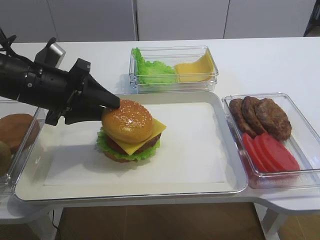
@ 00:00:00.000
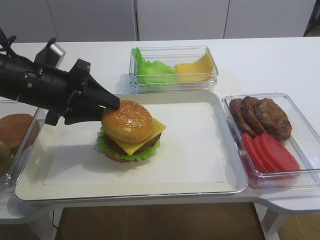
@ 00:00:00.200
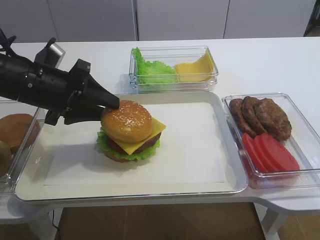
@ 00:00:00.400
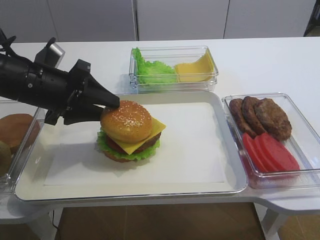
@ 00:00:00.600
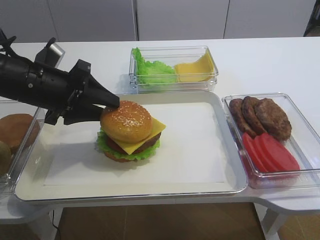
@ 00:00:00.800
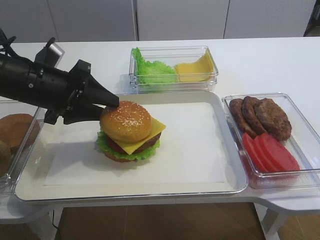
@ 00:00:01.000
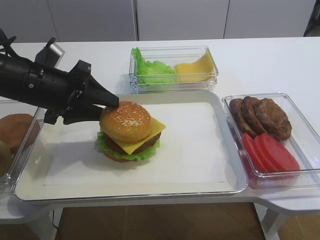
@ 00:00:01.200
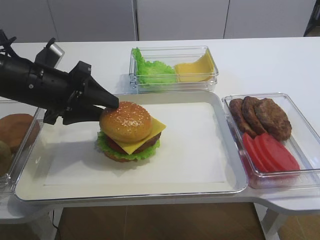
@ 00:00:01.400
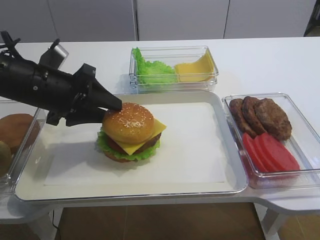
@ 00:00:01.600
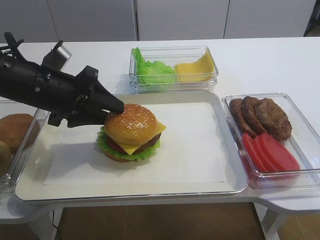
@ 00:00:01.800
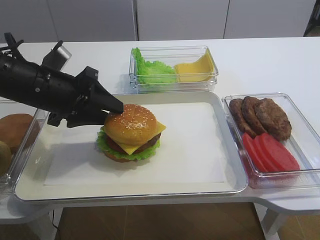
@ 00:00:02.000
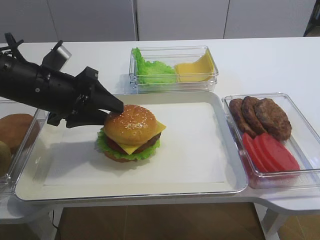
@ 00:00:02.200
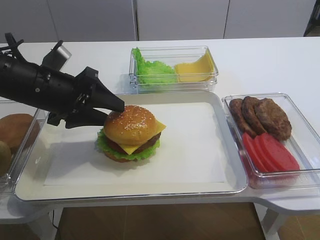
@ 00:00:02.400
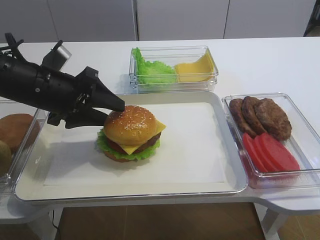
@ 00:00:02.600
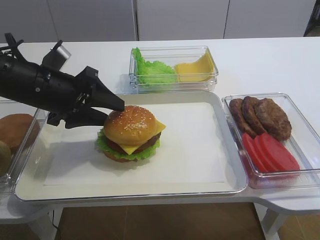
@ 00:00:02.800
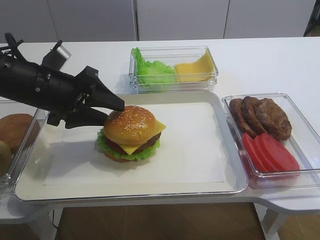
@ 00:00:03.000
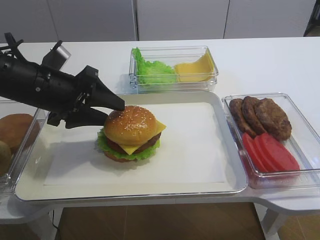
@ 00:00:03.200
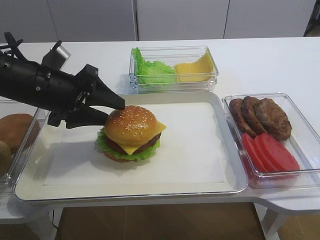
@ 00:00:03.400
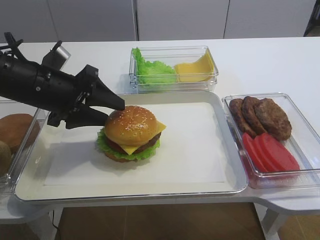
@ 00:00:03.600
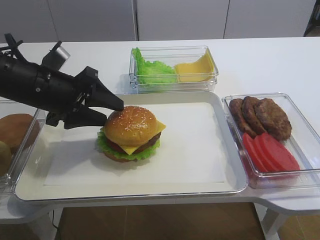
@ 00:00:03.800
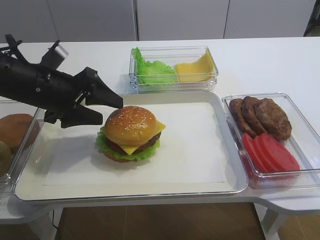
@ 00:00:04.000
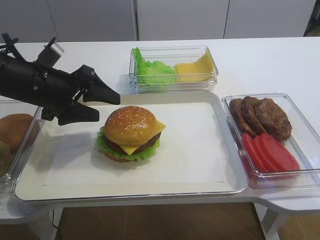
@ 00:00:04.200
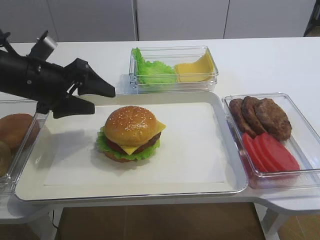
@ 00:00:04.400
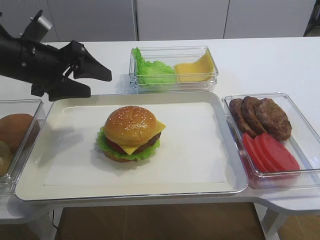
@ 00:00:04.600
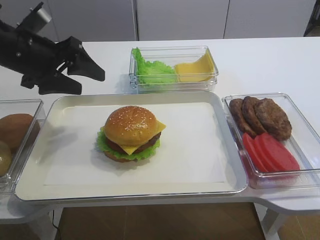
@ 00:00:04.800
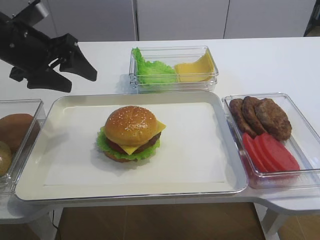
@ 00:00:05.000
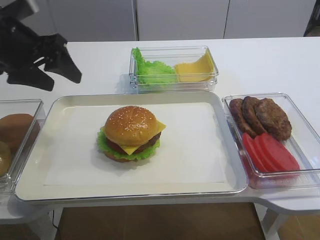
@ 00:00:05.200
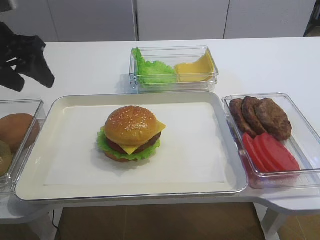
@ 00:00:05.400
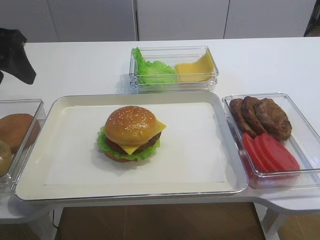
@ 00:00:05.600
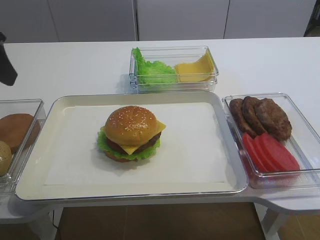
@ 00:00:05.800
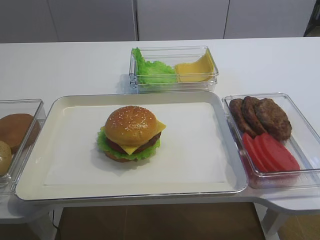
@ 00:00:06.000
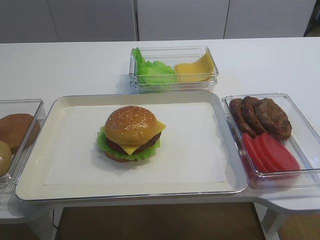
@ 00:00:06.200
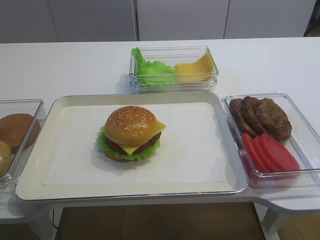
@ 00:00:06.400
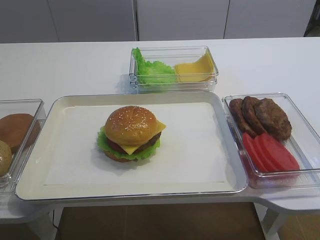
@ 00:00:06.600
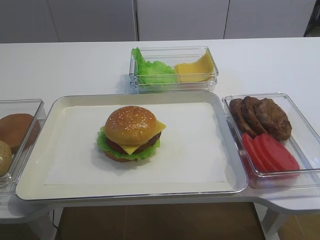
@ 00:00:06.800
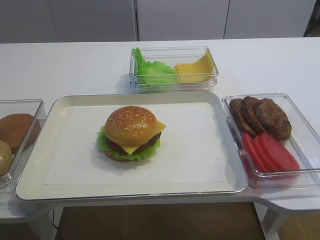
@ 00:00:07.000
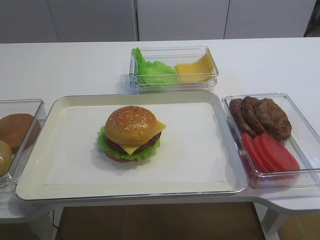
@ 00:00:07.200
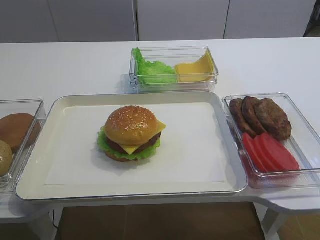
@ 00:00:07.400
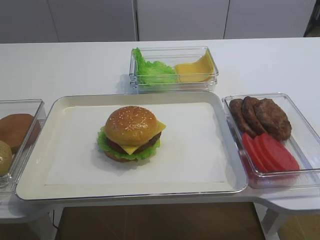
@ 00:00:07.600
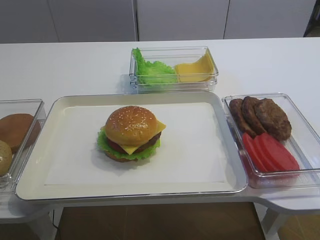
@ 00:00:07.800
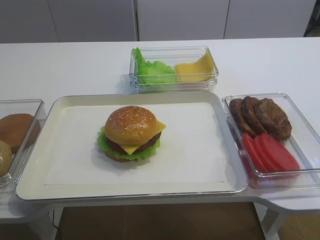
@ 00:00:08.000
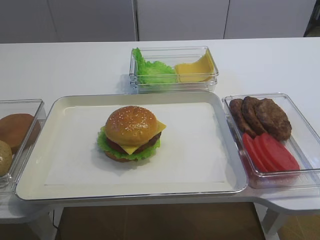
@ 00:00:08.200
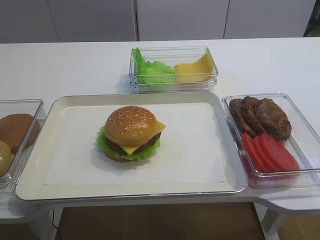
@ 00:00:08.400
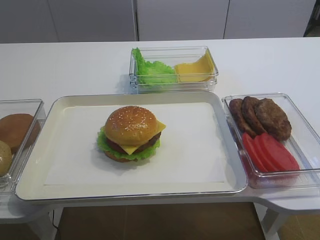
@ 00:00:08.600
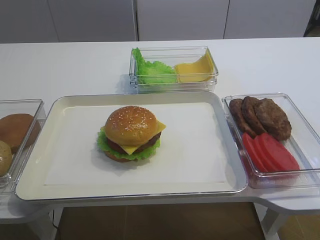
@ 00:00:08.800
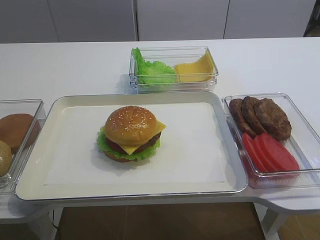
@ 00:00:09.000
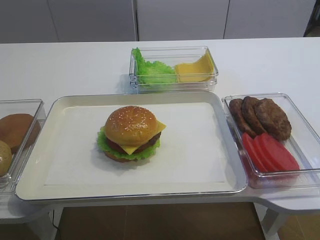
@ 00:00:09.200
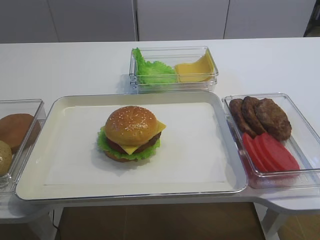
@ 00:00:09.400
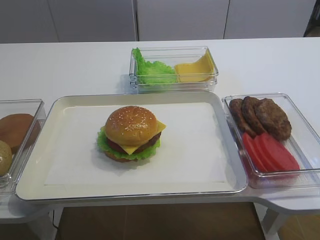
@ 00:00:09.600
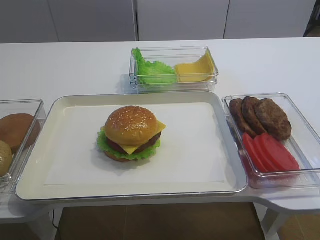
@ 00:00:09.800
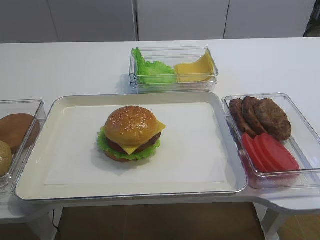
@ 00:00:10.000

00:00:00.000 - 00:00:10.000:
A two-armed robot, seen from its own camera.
Step, 00:00:00.000 - 00:00:04.200: Place the hamburger lid on the cheese slice with the left gripper.
00:00:00.000 - 00:00:01.400: The two grippers keep their place.
00:00:01.400 - 00:00:02.800: Neither gripper changes place.
00:00:02.800 - 00:00:04.200: The grippers stay close to where they were, moving slightly.
00:00:04.200 - 00:00:05.800: The left gripper shifts roughly 15 cm upward, to the left and backward.
00:00:05.800 - 00:00:07.200: The left gripper heads backward, covering about 30 cm.
00:00:08.600 - 00:00:10.000: Both grippers stay put.

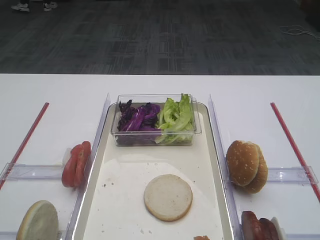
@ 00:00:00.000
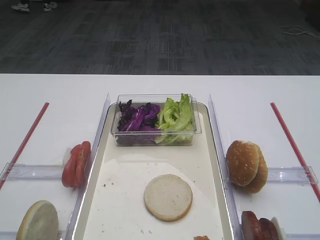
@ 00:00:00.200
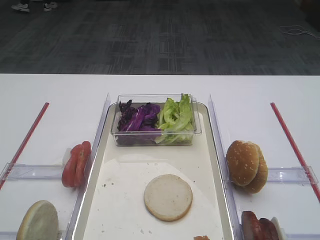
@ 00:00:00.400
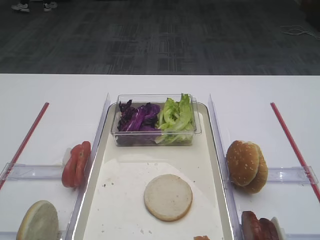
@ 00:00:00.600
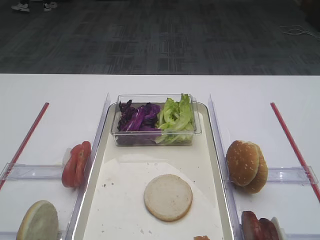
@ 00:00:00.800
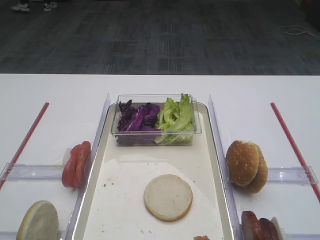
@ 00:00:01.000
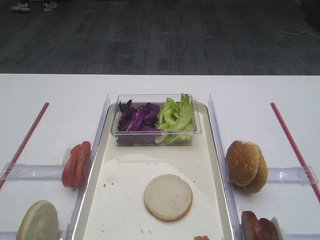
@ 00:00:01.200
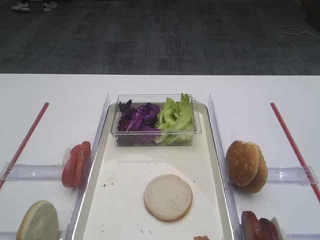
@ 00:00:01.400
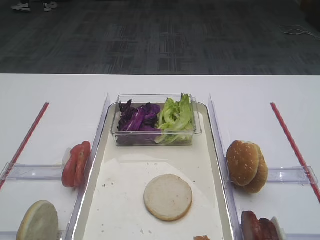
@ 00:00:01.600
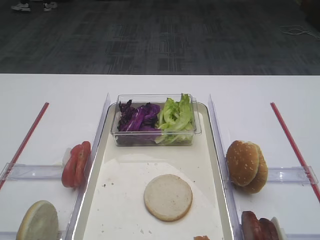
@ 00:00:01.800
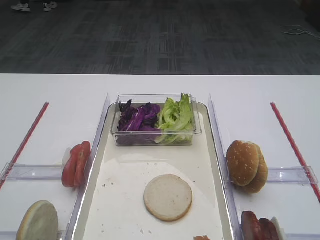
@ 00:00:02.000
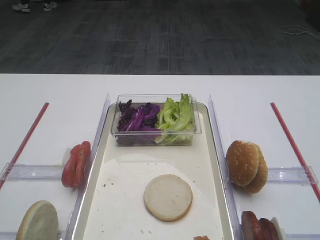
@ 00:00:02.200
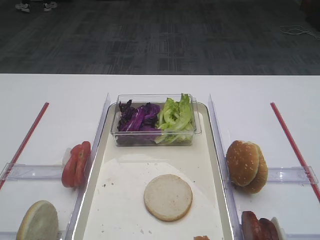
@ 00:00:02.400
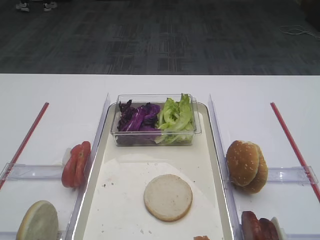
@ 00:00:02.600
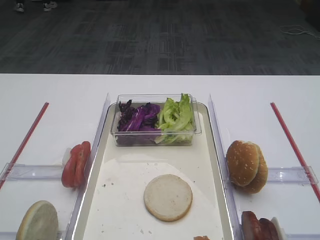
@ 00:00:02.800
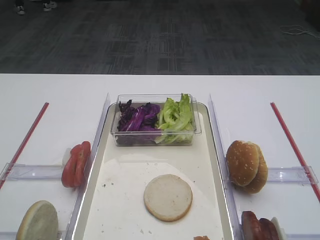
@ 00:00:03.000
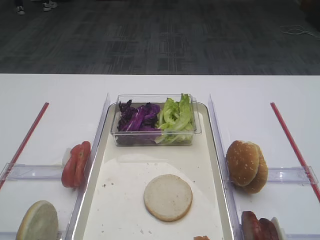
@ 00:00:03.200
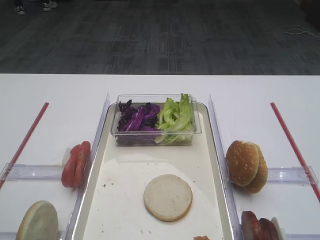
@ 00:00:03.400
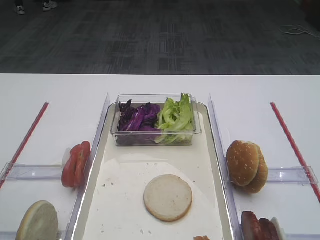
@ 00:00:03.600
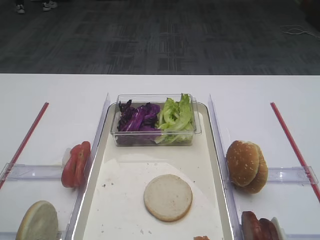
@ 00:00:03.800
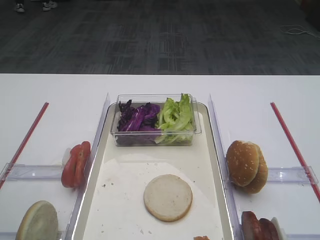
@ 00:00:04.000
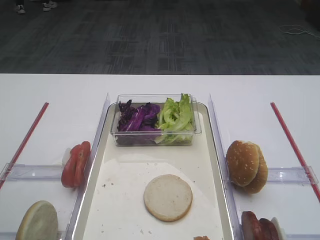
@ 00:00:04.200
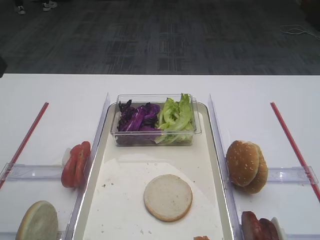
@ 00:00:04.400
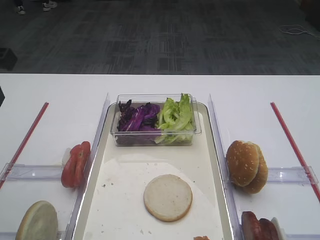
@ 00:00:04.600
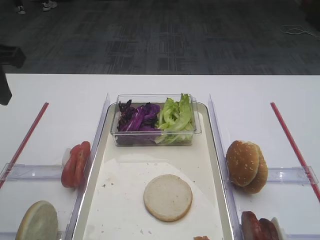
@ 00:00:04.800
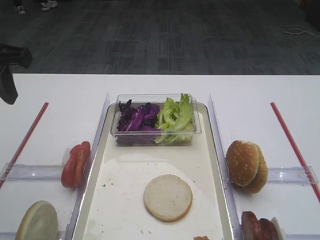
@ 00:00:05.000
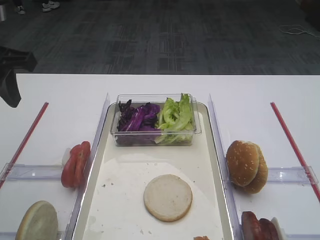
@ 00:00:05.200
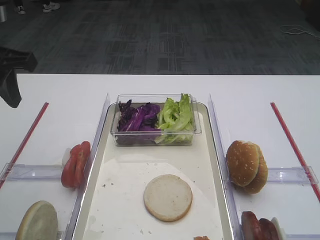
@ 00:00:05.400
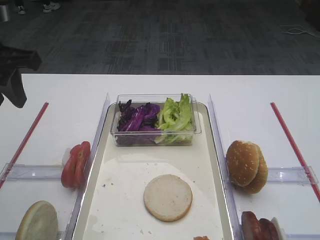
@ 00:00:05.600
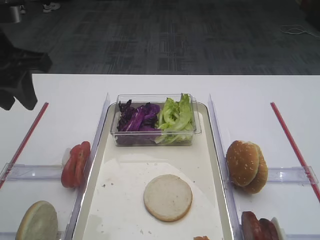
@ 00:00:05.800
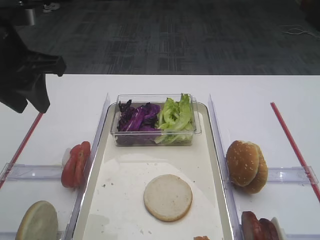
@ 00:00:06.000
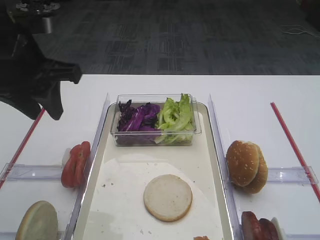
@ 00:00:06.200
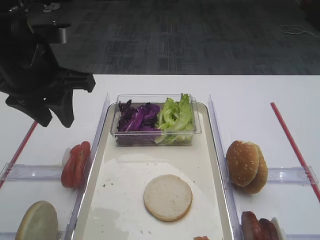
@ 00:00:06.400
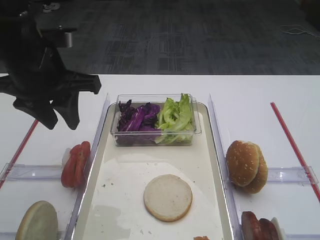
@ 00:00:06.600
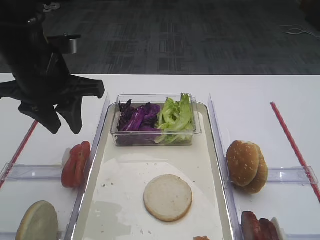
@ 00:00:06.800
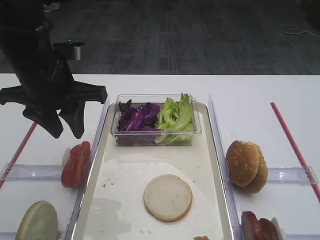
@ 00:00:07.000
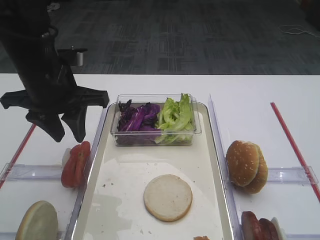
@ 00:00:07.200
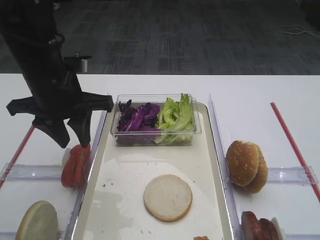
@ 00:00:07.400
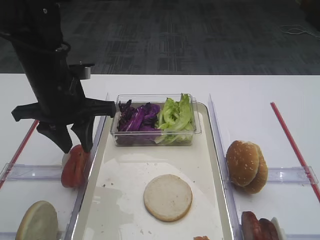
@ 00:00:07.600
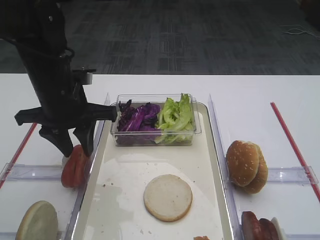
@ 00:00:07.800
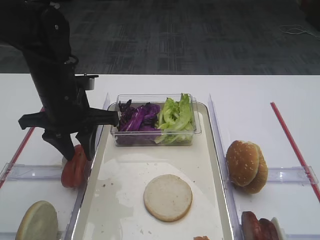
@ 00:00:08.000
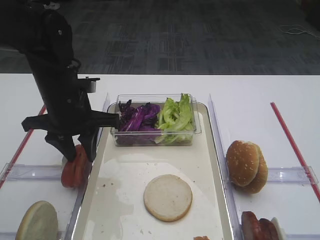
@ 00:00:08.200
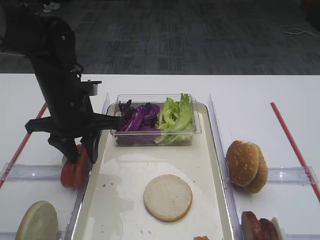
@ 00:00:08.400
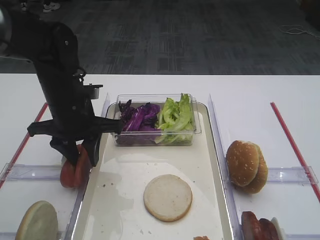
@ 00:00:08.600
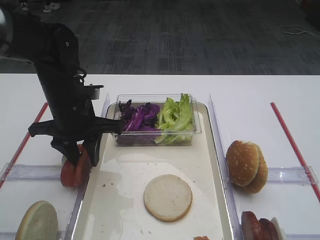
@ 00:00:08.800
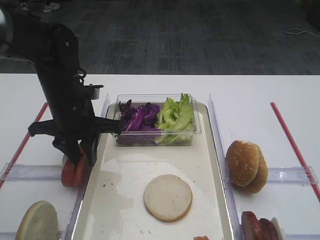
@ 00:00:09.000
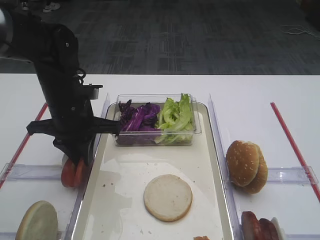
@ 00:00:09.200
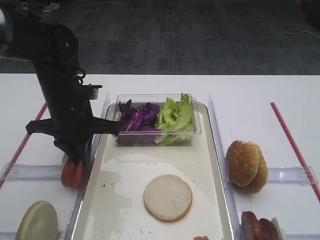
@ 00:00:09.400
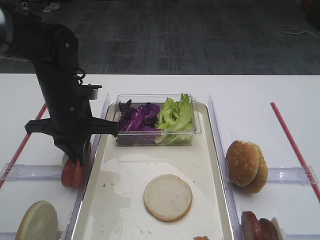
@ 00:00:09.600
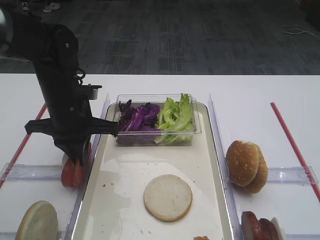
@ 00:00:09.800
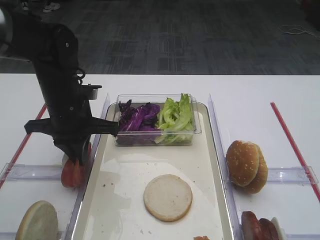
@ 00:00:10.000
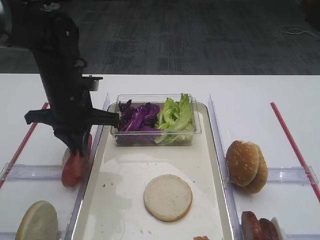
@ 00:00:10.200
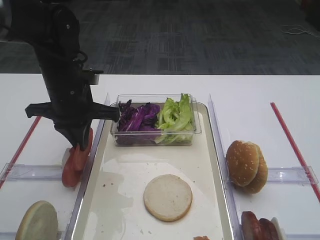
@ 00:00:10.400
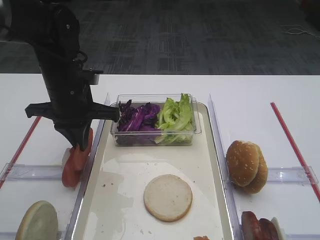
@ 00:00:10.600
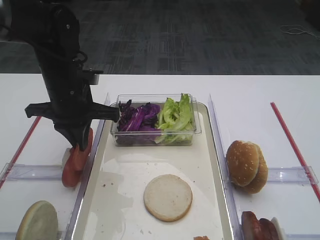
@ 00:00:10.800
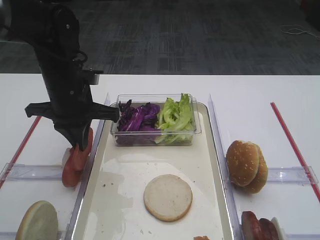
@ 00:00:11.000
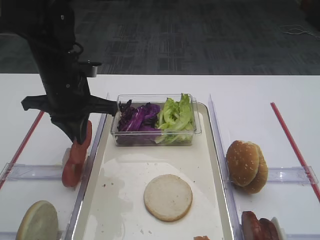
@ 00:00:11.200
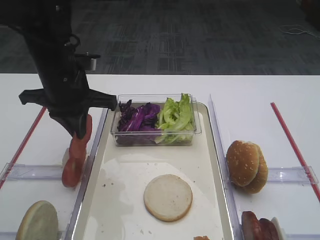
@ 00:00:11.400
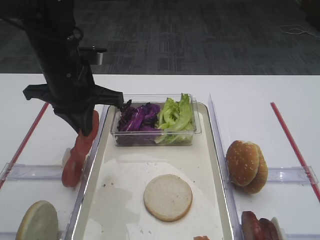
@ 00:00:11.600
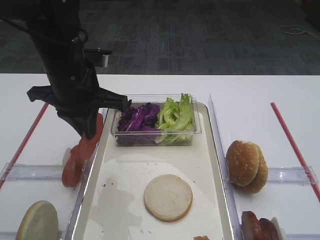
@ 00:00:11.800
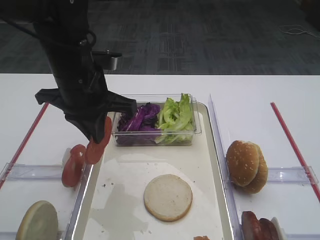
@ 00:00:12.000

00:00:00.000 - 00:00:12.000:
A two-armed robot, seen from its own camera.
Step, 00:00:00.000 - 00:00:11.800: Pick up the tomato slice with the left gripper.
00:00:04.400 - 00:00:06.000: The left gripper is displaced forward by roughly 5 cm.
00:00:06.000 - 00:00:07.600: The left gripper shifts some 10 cm downward and to the right.
00:00:07.600 - 00:00:09.000: The left gripper shifts some 5 cm downward.
00:00:09.000 - 00:00:10.400: The left gripper closes its fingers.
00:00:10.400 - 00:00:12.000: The left gripper ends up some 5 cm from where it was.
